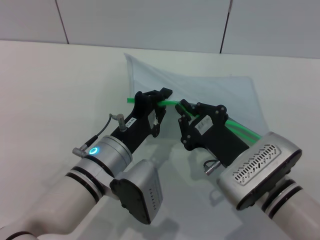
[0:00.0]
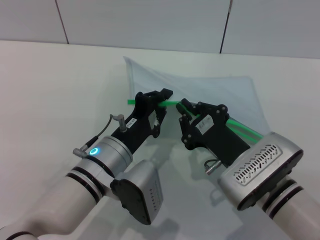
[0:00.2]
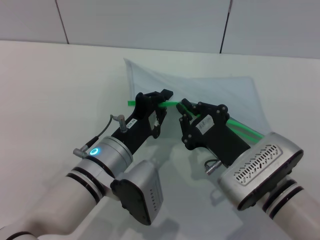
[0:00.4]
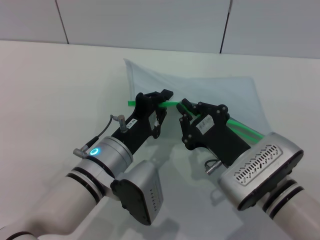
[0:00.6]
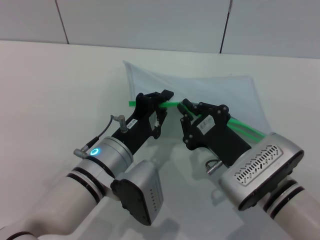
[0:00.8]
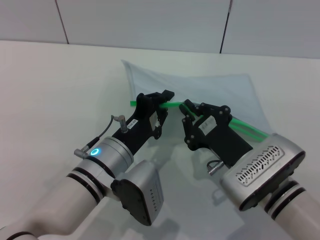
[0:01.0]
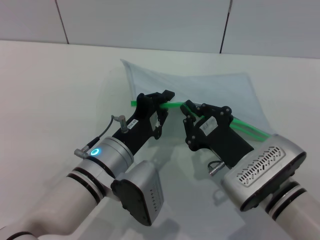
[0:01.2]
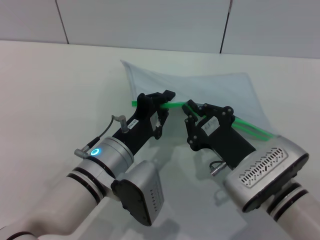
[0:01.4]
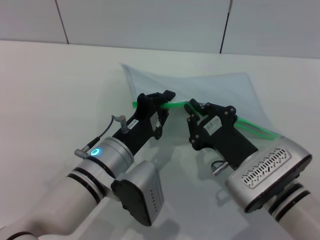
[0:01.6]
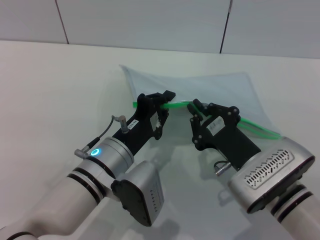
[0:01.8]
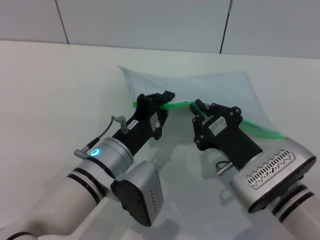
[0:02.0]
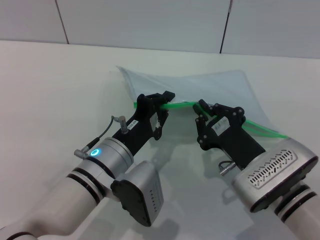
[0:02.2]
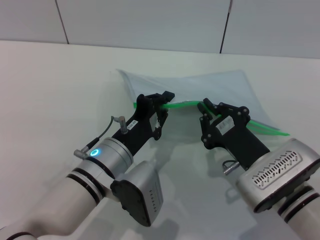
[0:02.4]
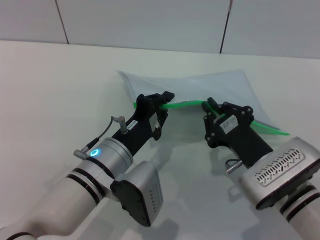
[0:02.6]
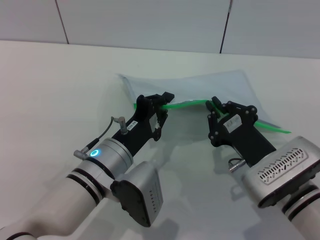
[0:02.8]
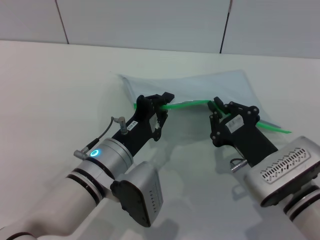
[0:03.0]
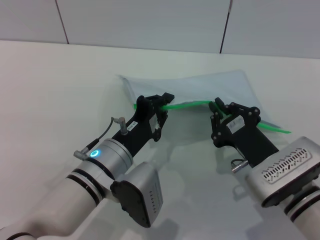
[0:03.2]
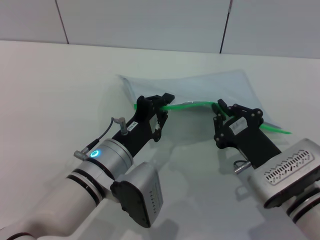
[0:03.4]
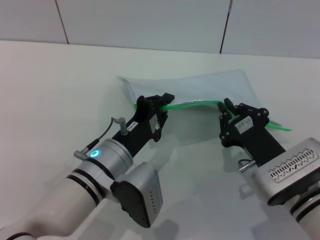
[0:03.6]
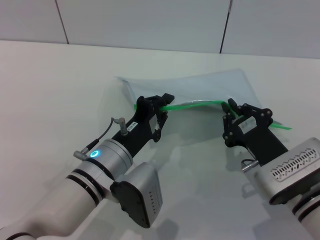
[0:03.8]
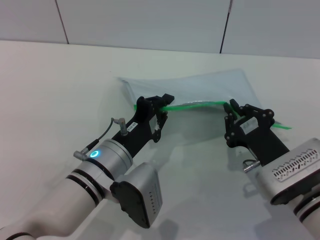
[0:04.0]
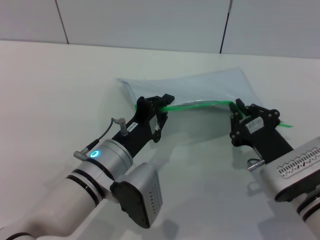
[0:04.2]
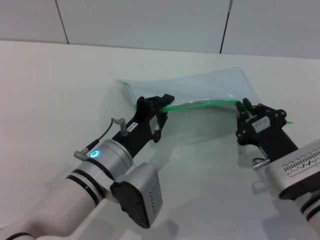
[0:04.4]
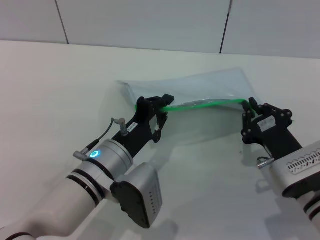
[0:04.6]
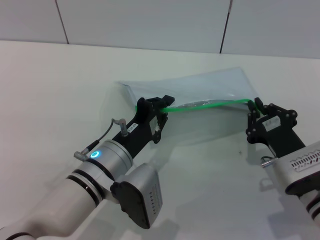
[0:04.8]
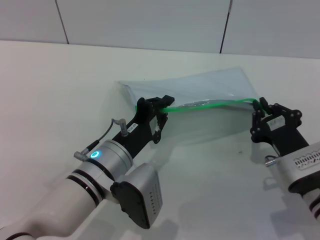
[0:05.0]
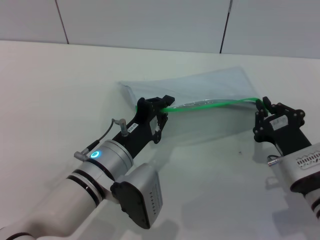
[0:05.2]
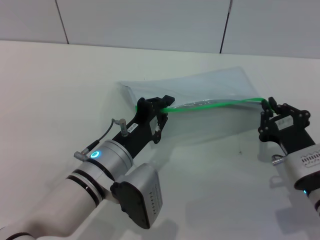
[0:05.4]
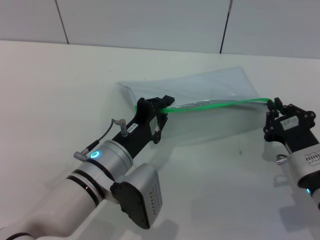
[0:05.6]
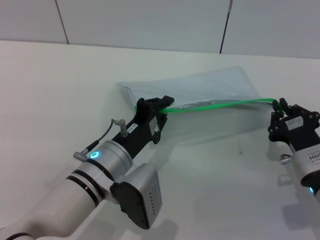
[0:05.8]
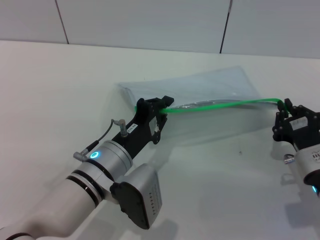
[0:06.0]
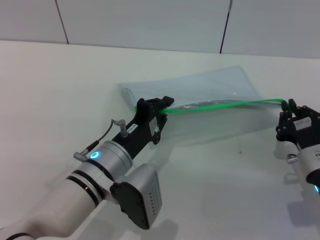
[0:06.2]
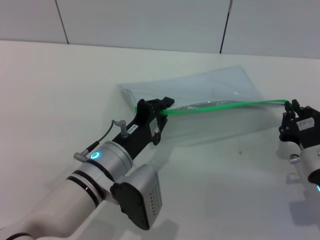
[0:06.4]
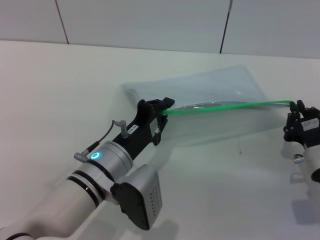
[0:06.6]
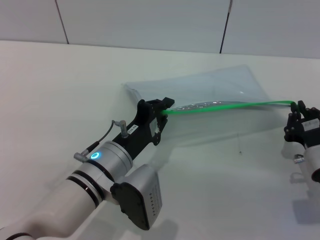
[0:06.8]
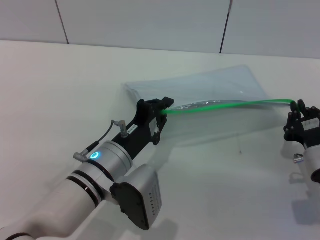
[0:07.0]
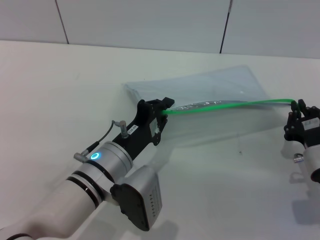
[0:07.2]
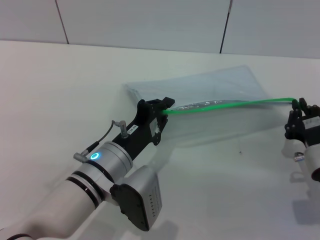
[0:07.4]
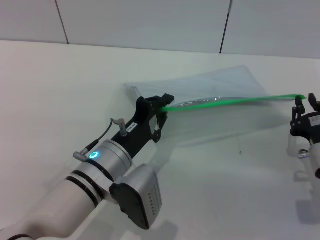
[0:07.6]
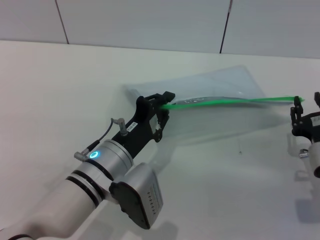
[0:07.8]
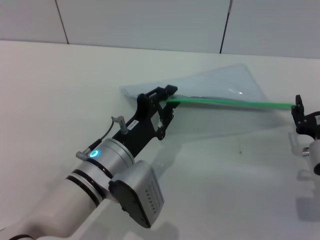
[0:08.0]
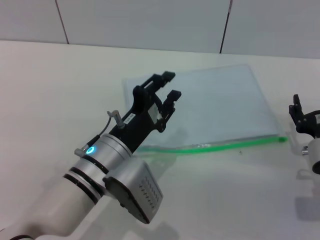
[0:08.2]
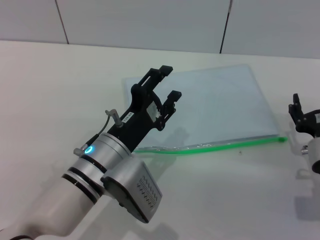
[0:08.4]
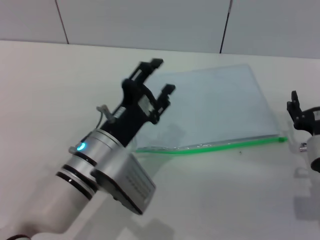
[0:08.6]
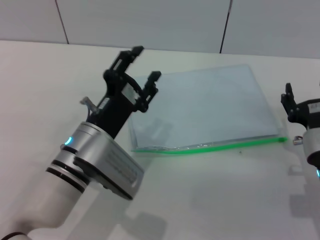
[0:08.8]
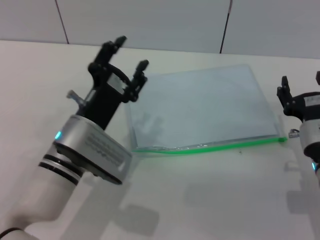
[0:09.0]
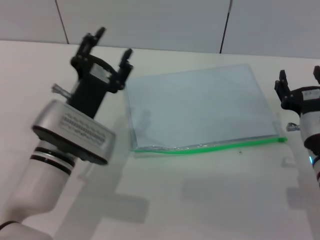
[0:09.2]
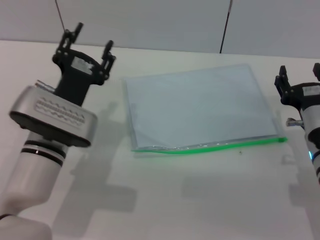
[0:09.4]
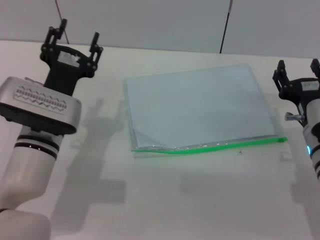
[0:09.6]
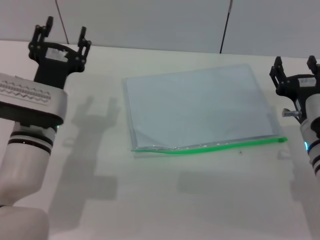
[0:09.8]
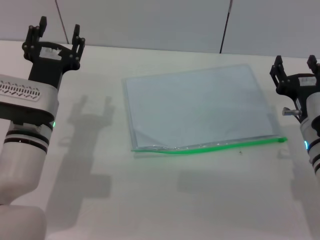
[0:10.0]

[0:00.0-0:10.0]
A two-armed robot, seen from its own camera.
Step, 0:00.0 to 0:07.8: Pulling up the zipper on the transparent plastic bag with the right gripper to close it.
Step, 0:08.0 to 0:08.6: Place the transparent plastic bag.
0:00.0 to 0:01.4: Both grippers stay put.
0:01.4 to 0:04.2: There are only small adjustments of the grippers.
0:04.2 to 0:05.8: The grippers make only small movements.
0:05.8 to 0:07.2: There are only small adjustments of the grippers.
0:07.2 to 0:08.6: The right gripper opens; the left gripper opens.
0:08.6 to 0:10.0: The left gripper shifts roughly 10 cm to the left and forward. The right gripper ends up approximately 5 cm from where it was.
